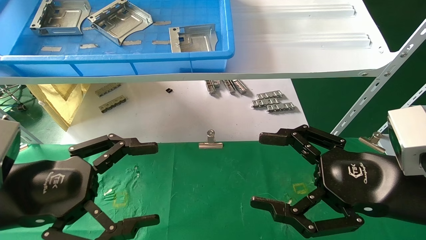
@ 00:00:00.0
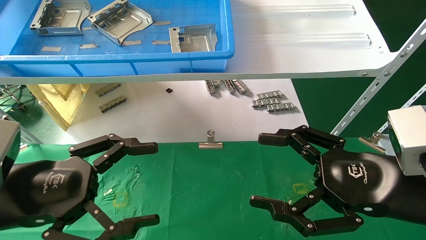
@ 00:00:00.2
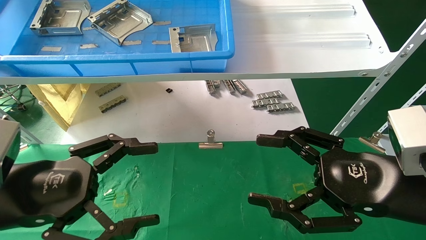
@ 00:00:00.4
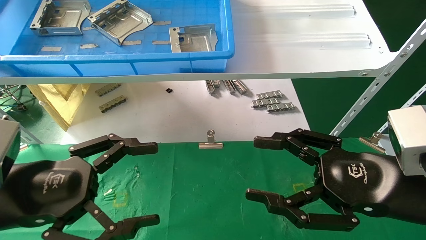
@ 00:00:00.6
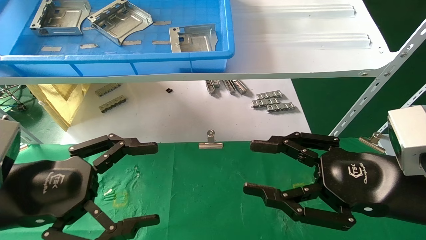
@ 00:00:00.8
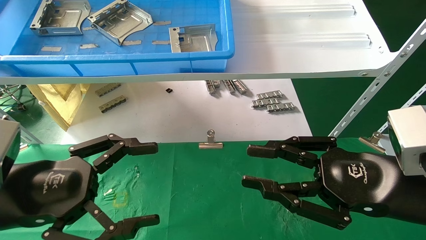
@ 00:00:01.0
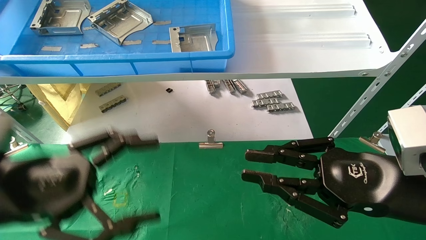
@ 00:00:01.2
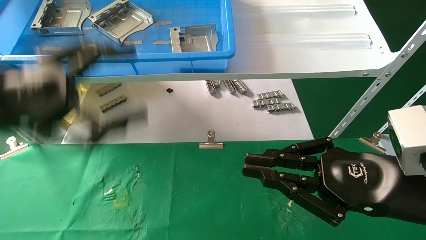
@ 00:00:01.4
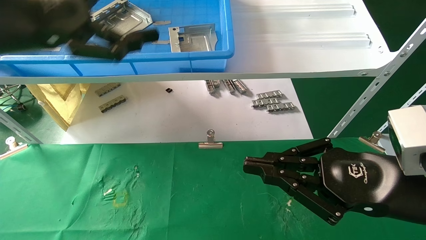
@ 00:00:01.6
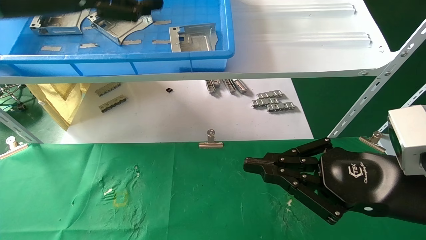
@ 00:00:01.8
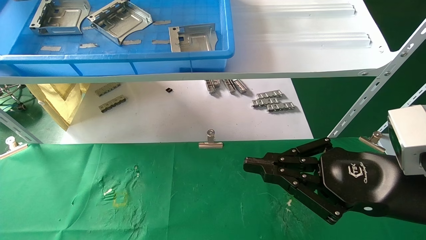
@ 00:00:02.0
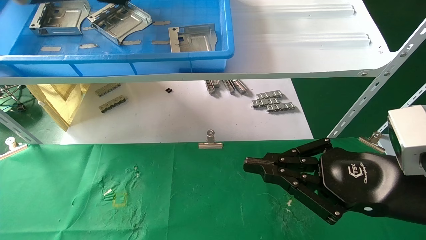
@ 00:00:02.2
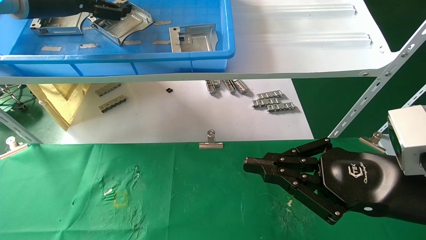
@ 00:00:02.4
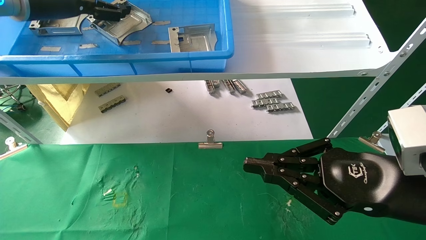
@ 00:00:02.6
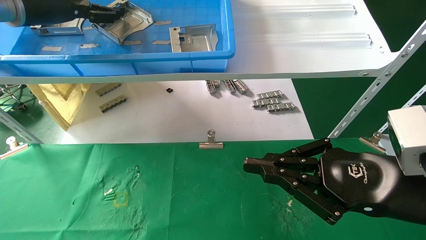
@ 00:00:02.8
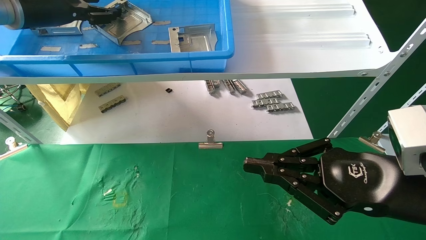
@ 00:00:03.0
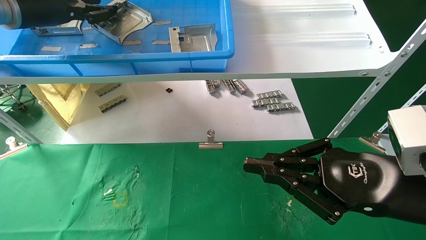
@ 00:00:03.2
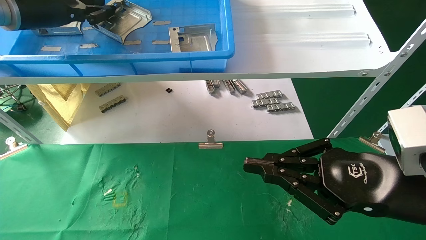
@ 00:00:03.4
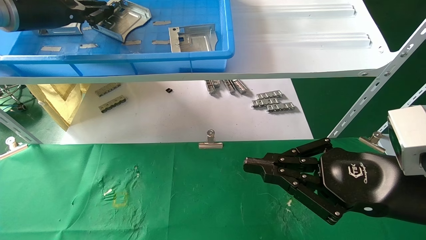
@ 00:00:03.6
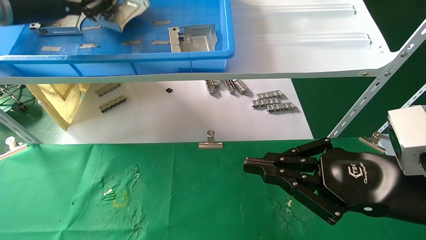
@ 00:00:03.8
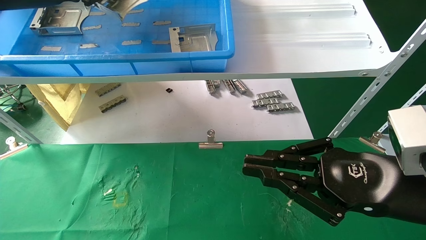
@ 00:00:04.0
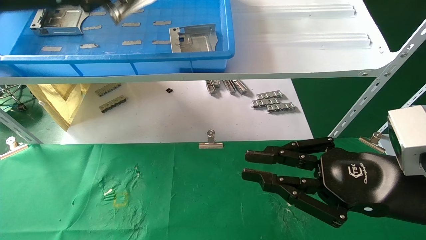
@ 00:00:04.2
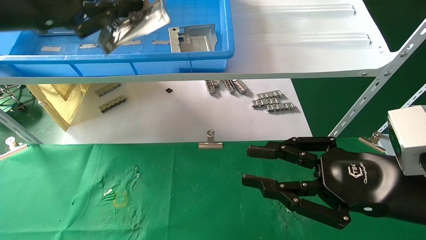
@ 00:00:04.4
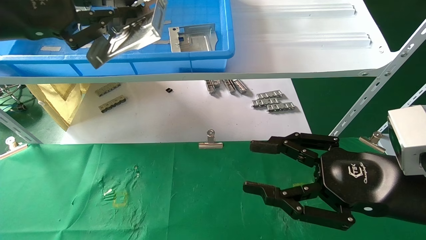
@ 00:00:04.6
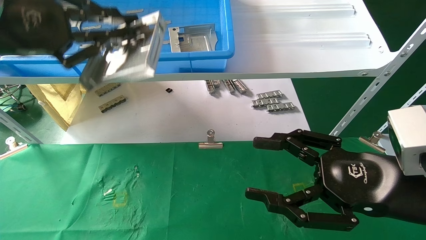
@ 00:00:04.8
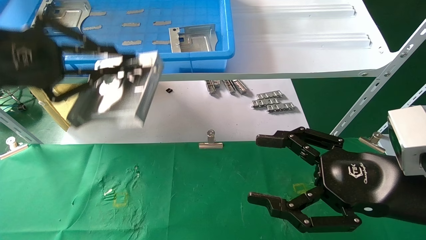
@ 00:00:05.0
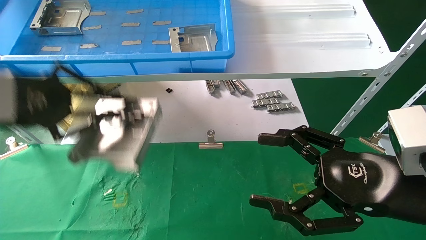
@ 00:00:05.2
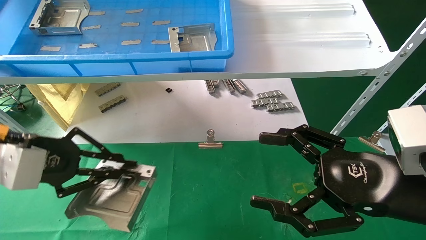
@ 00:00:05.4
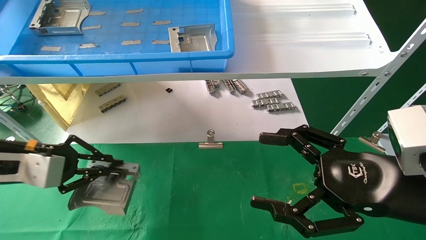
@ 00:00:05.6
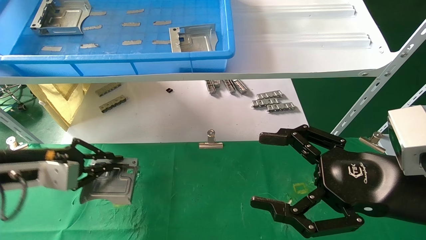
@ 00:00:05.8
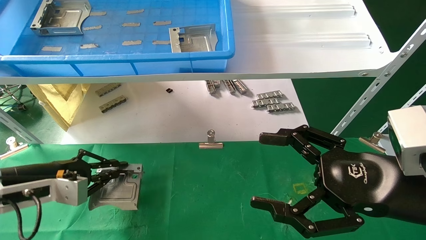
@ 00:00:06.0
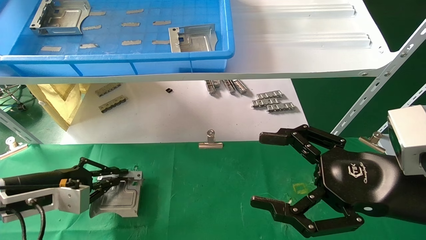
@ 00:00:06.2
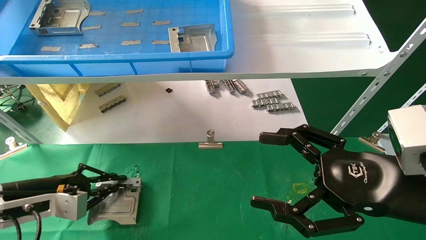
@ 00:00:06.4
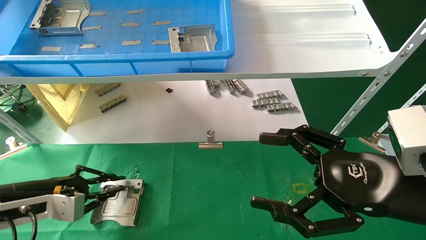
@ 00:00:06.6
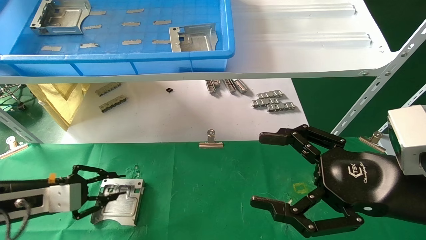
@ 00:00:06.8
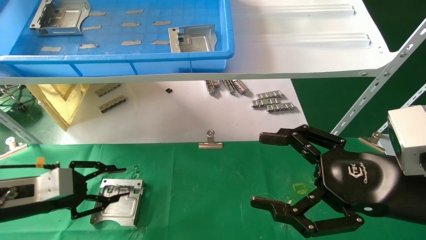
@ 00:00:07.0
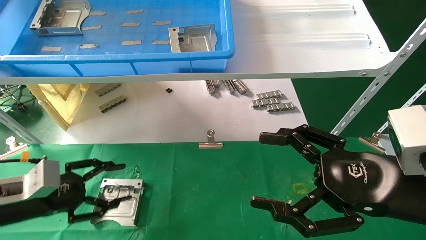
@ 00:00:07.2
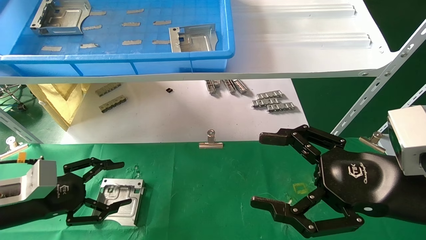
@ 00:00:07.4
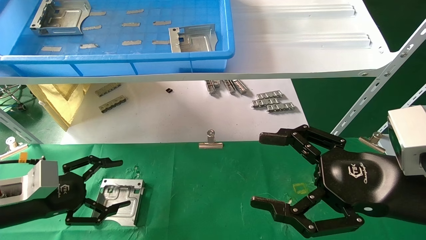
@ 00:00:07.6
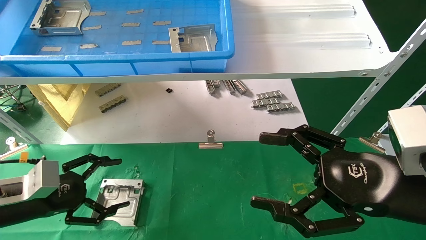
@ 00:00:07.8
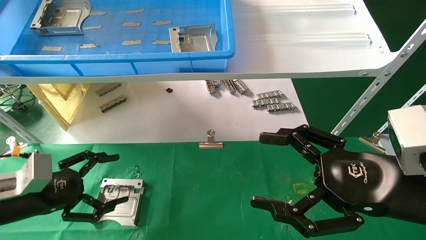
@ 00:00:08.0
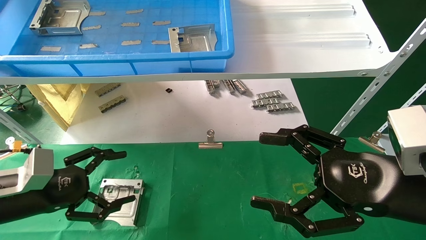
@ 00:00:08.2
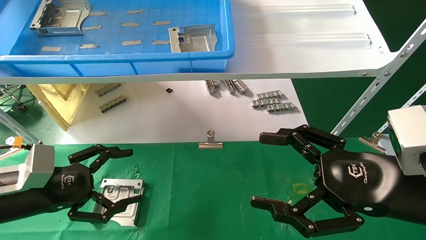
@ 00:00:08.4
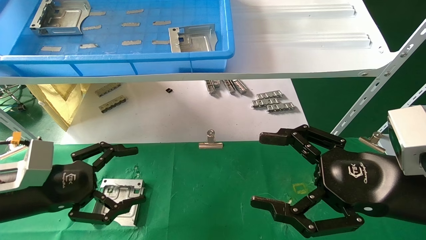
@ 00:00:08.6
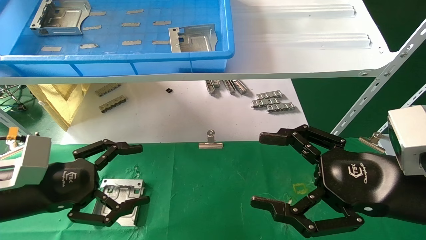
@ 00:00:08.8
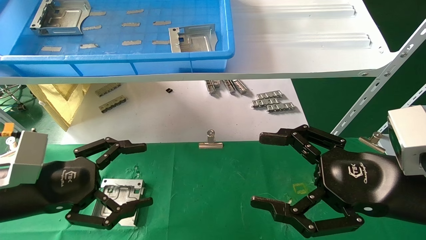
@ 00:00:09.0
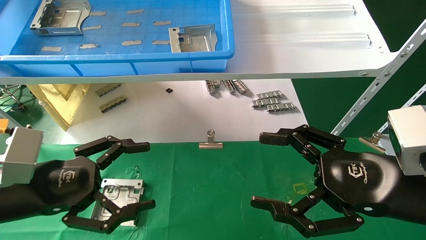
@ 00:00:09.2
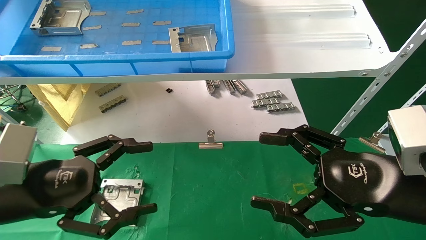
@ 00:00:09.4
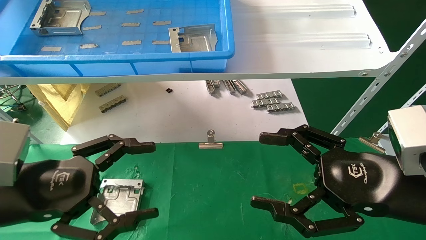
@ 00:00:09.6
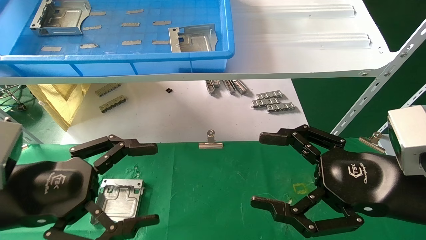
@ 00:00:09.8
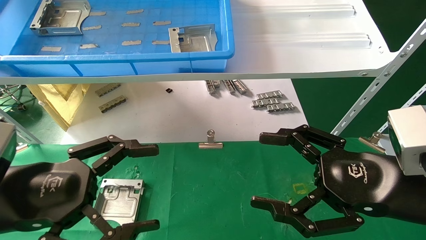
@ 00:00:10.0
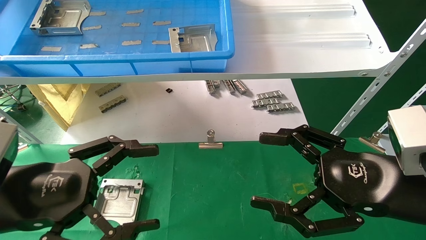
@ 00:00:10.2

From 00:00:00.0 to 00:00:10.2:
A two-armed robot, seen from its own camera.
Task of the whole recording: use the mechanical arm to pick up the parts and place them on the table.
Step, from 00:00:01.6 to 00:00:03.4: Pick up the hard drive bracket from the feeding area.
Step, from 00:00:03.6 to 00:00:07.0: Place the hard drive bracket into the box.
From 00:00:00.0 to 00:00:01.4: The left gripper shifts roughly 10 cm upward. Meanwhile the right gripper closes.
From 00:00:01.4 to 00:00:03.0: The left gripper moves forward and upward, some 20 cm.
From 00:00:03.0 to 00:00:04.4: The left gripper shifts approximately 10 cm backward, and closes its fingers.
From 00:00:04.4 to 00:00:05.8: The left gripper is displaced downward by roughly 25 cm; the right gripper opens up.
From 00:00:05.8 to 00:00:07.2: The left gripper moves downward, some 5 cm, and opens.
From 00:00:07.2 to 00:00:08.8: The left gripper goes roughly 5 cm to the right, and opens its fingers.
From 00:00:08.8 to 00:00:10.2: The left gripper heads backward, covering approximately 5 cm.
